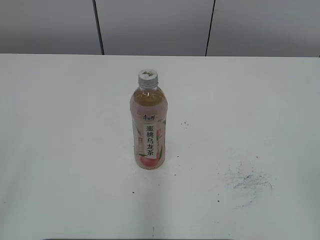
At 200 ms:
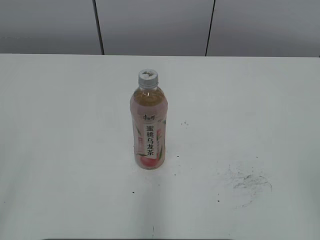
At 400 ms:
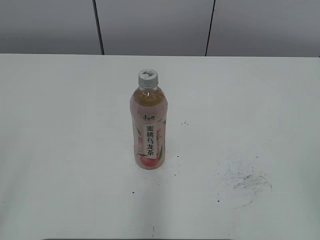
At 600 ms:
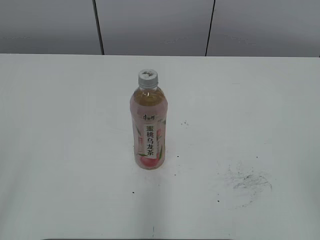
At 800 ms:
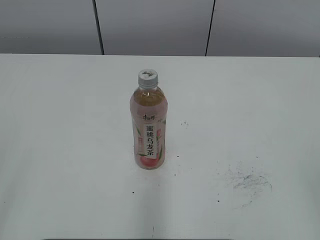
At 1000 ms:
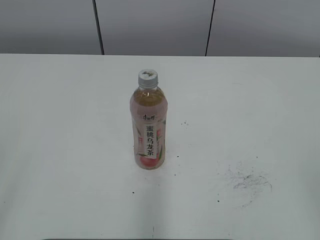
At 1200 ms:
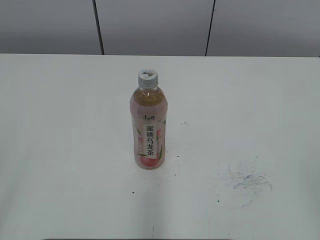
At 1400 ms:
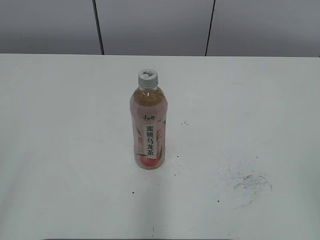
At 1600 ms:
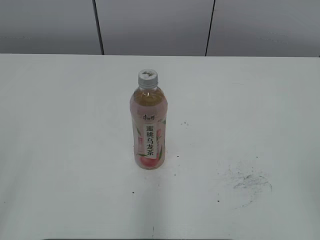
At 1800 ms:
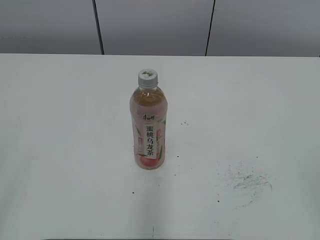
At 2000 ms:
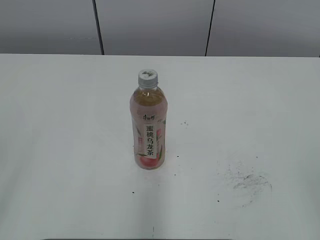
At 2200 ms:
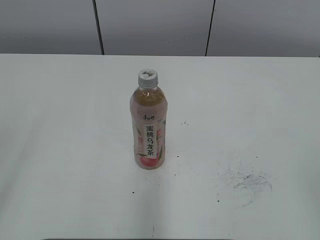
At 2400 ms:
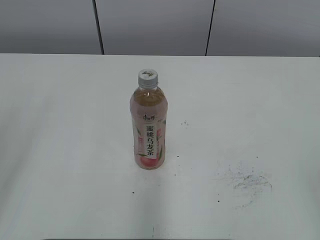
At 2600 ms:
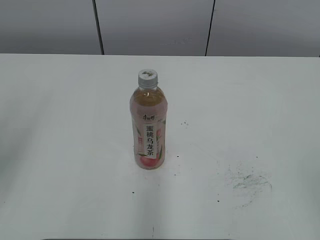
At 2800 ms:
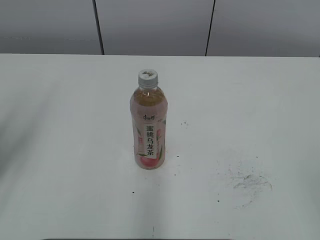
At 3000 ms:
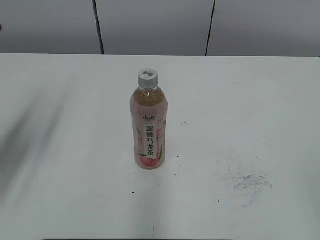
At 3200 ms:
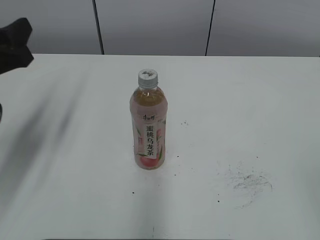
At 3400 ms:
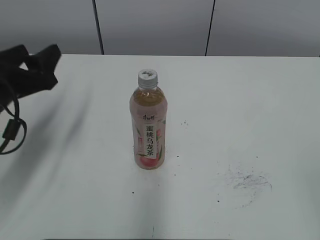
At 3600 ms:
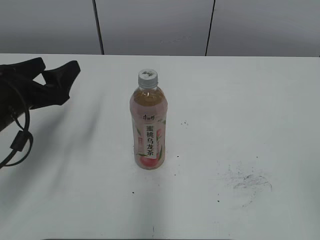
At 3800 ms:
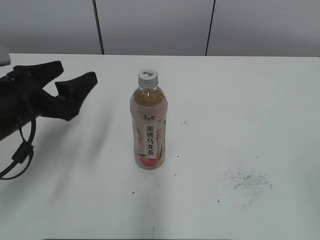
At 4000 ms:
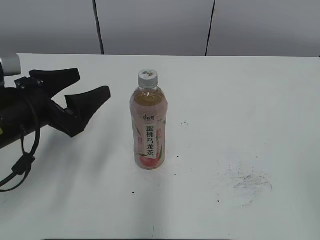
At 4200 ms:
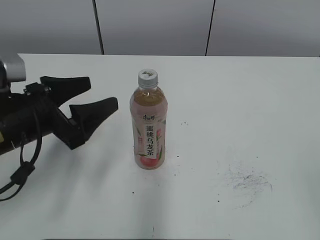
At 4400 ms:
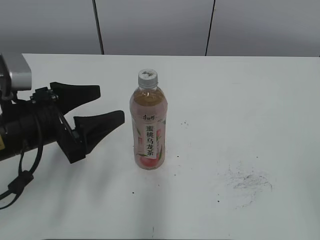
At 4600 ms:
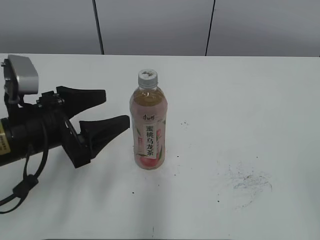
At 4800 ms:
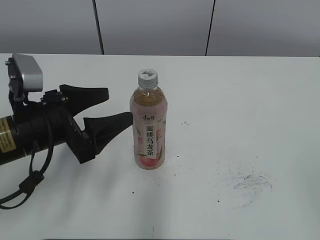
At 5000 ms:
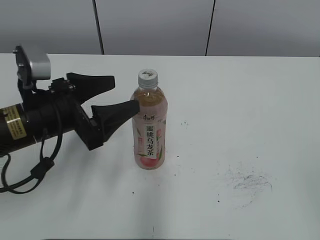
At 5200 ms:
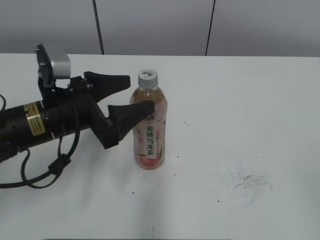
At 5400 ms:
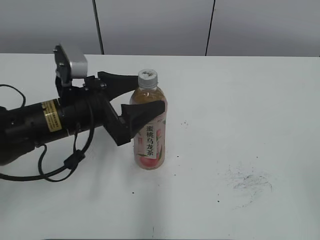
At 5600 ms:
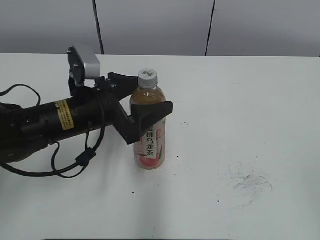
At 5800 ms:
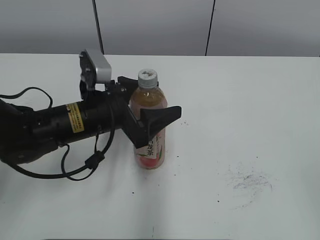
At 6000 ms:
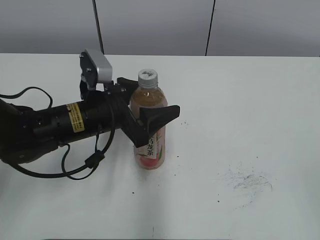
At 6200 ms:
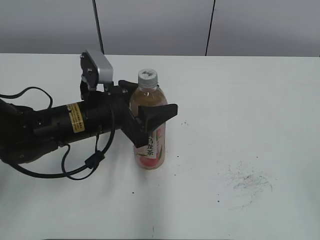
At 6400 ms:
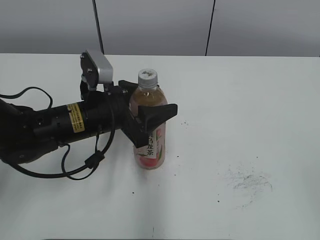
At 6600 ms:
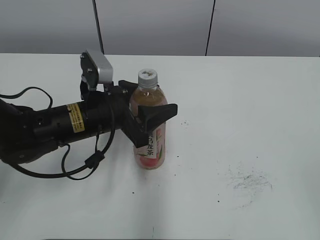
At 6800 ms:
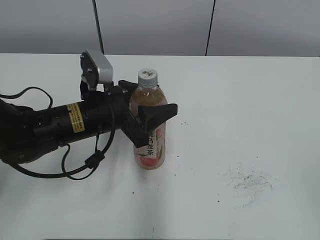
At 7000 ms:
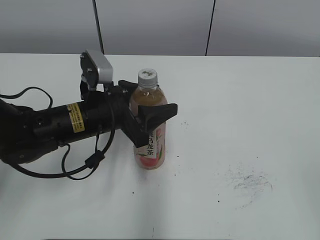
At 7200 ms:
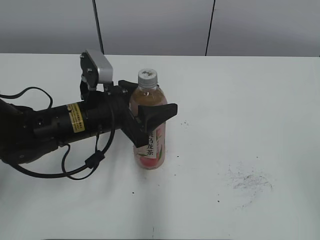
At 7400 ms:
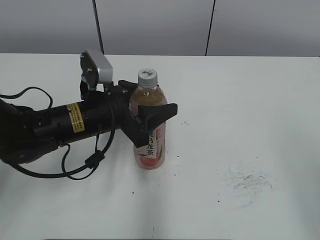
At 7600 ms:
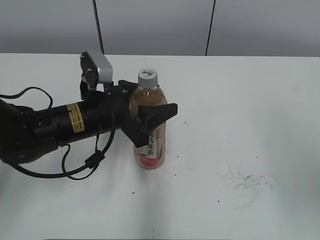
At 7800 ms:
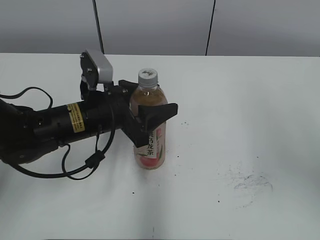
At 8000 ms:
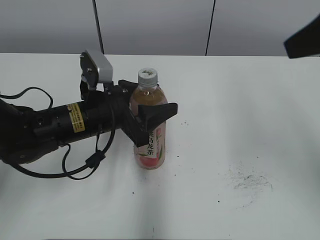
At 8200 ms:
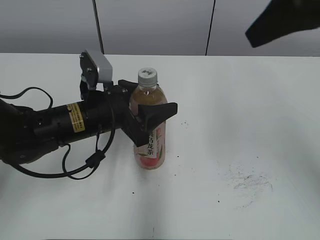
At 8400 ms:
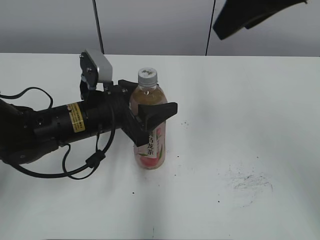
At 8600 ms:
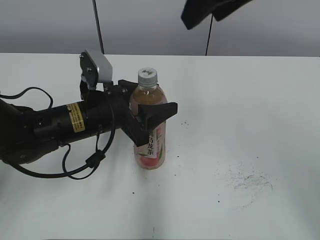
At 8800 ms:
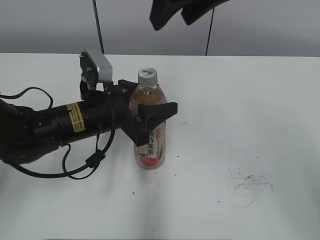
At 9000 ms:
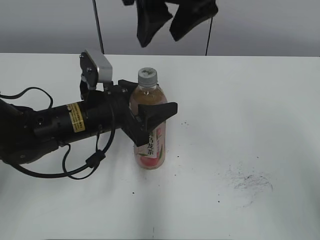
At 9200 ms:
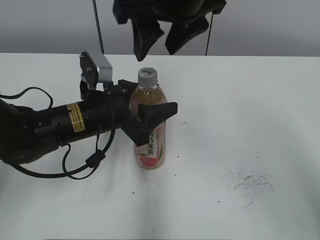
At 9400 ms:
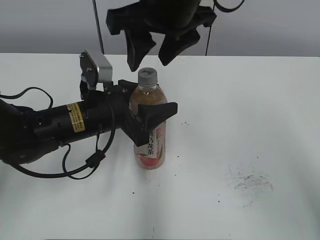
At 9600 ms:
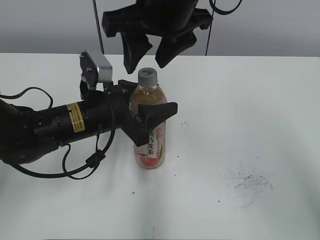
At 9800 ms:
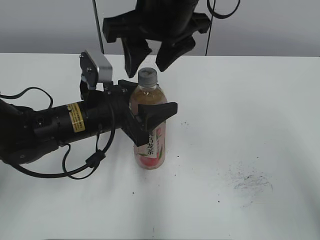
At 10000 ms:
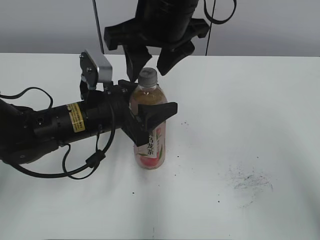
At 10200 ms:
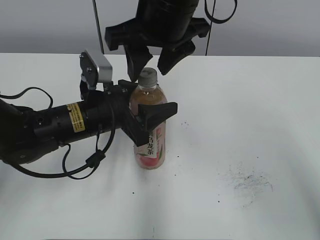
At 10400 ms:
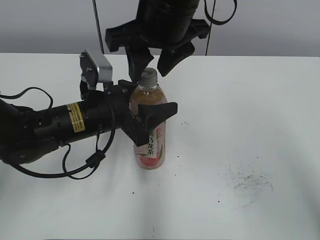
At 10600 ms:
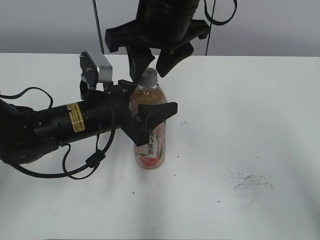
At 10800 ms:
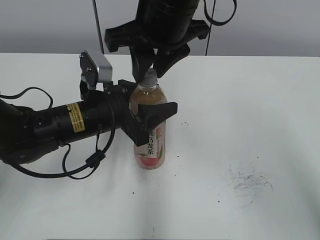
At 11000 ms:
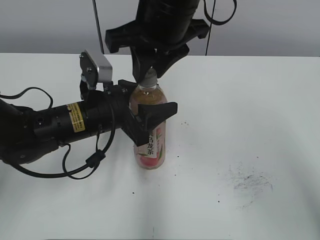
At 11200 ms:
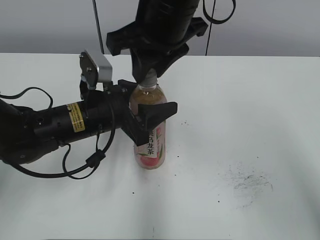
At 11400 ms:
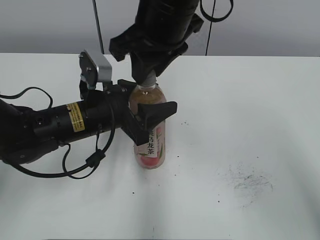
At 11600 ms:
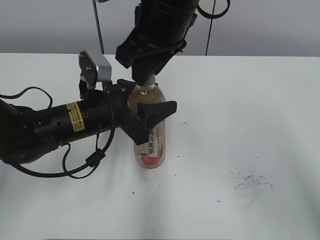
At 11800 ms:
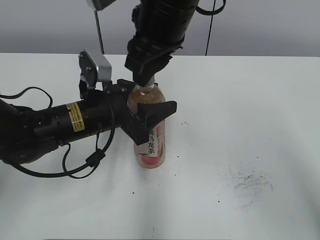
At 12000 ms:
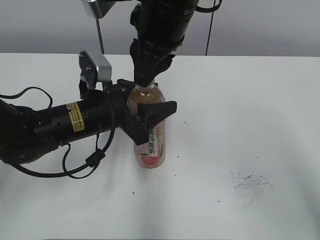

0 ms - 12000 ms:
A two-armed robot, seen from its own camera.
Step, 0 ms - 6200 ms: Grab the Peach Oolong Tea with the left hand.
1600 ms - 3000 ms: The left gripper moves forward, approximately 20 cm.
3000 ms - 4400 ms: The left gripper shifts approximately 15 cm downward and to the right, and opens.
4400 ms - 6000 ms: The left gripper moves to the right and forward, approximately 10 cm.
6000 ms - 7600 ms: The right gripper travels forward by about 10 cm. Meanwhile the left gripper closes its fingers.
7600 ms - 9000 ms: The right gripper heads to the left and forward, covering roughly 30 cm.
9000 ms - 10400 ms: The right gripper travels downward by roughly 5 cm.
10400 ms - 12000 ms: The right gripper closes up.

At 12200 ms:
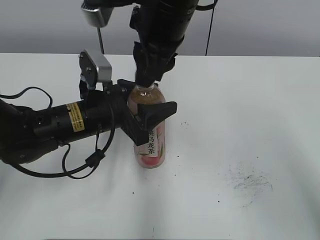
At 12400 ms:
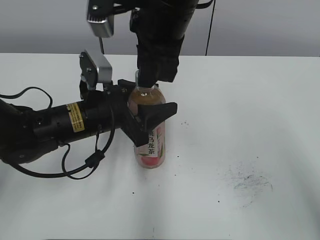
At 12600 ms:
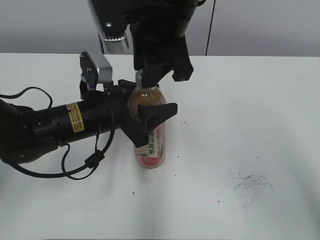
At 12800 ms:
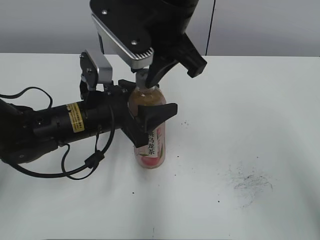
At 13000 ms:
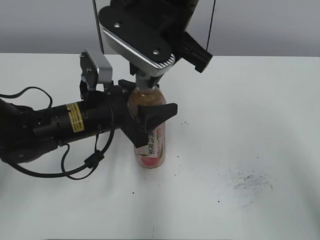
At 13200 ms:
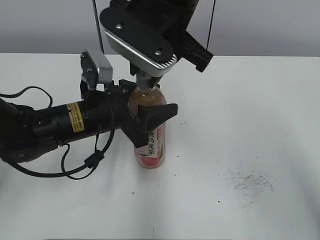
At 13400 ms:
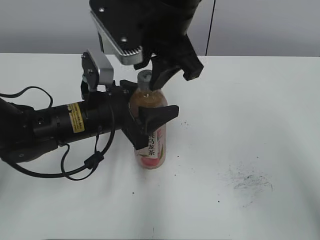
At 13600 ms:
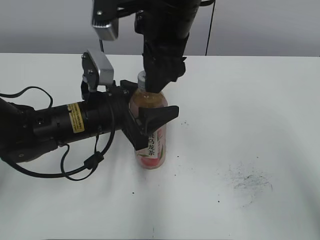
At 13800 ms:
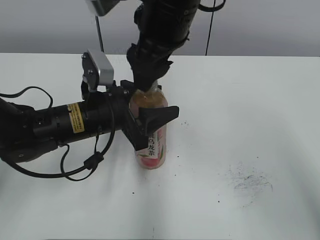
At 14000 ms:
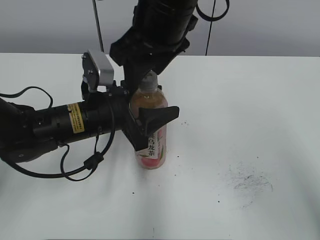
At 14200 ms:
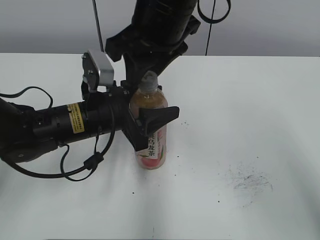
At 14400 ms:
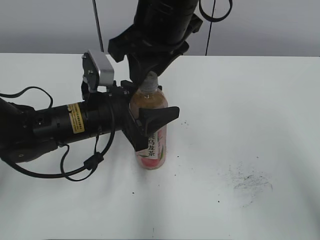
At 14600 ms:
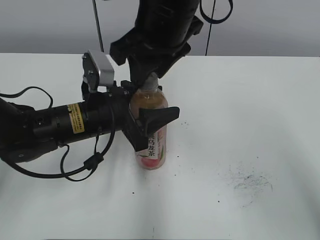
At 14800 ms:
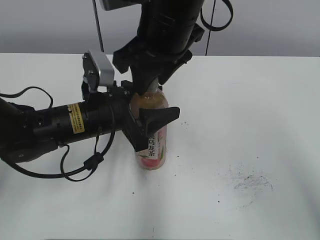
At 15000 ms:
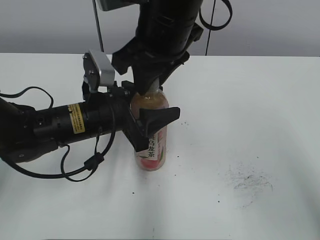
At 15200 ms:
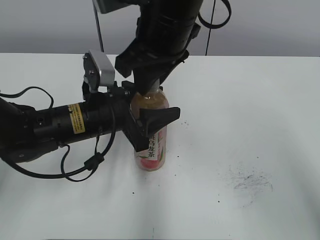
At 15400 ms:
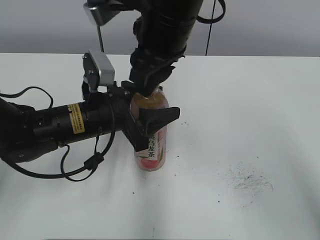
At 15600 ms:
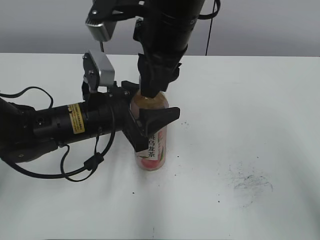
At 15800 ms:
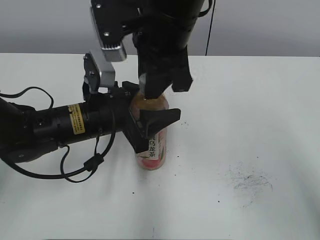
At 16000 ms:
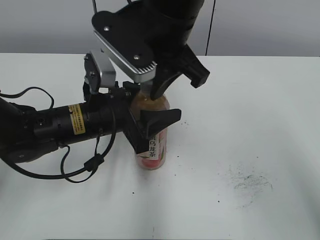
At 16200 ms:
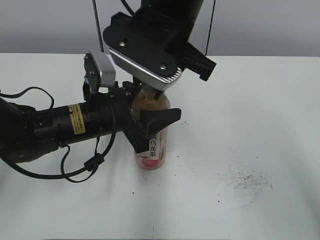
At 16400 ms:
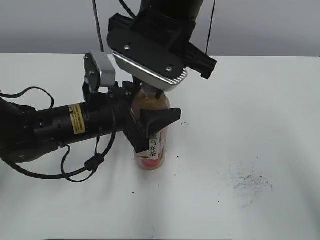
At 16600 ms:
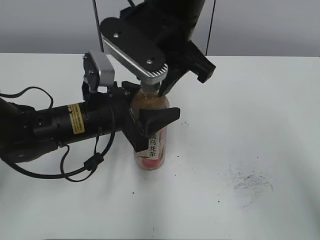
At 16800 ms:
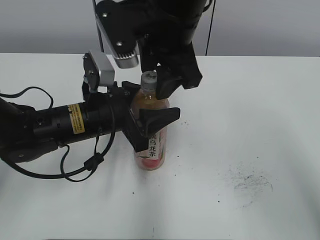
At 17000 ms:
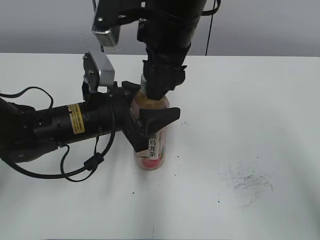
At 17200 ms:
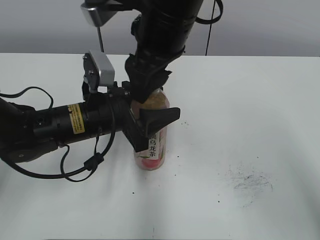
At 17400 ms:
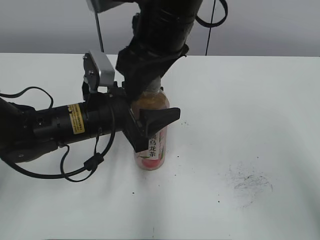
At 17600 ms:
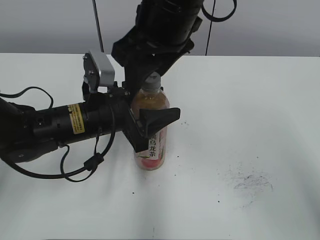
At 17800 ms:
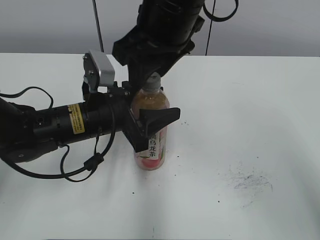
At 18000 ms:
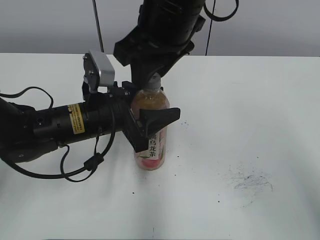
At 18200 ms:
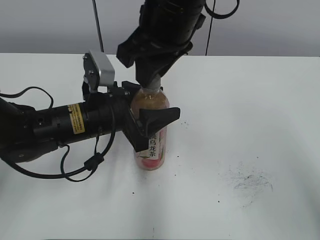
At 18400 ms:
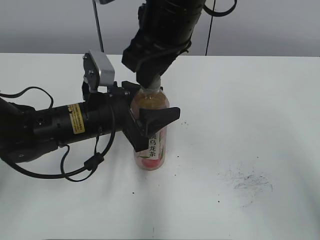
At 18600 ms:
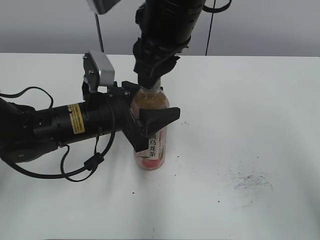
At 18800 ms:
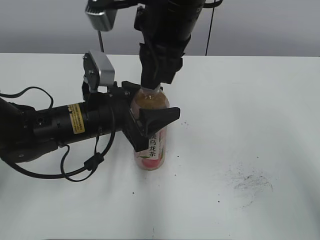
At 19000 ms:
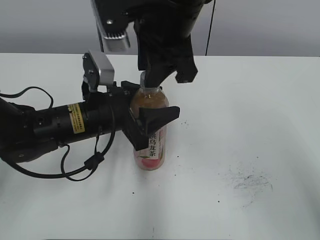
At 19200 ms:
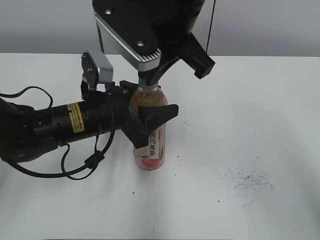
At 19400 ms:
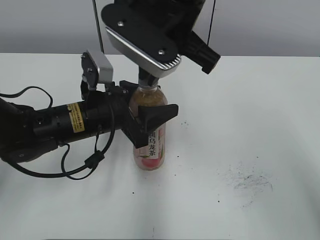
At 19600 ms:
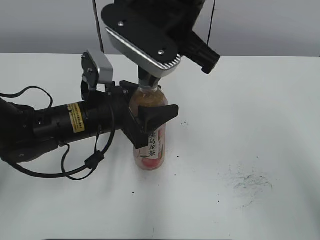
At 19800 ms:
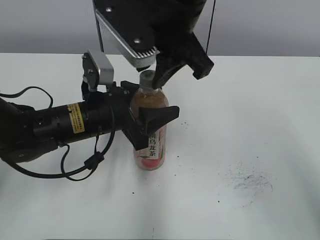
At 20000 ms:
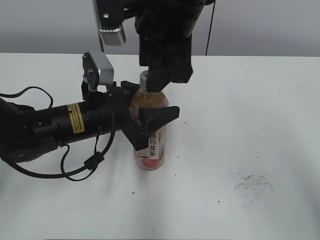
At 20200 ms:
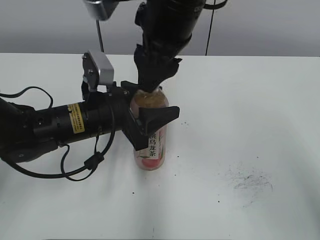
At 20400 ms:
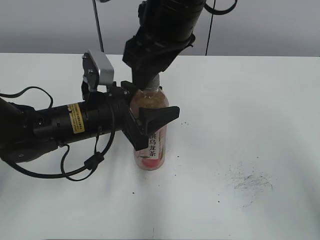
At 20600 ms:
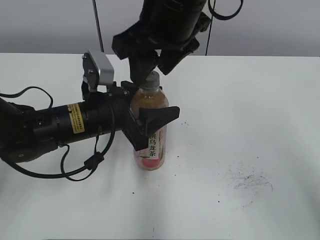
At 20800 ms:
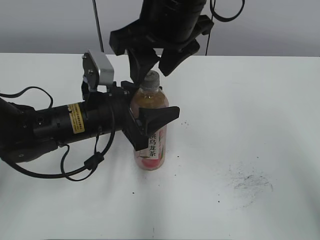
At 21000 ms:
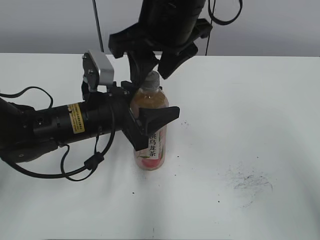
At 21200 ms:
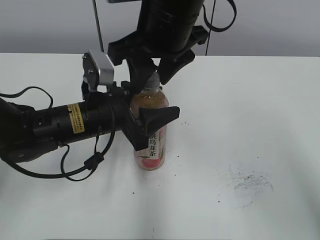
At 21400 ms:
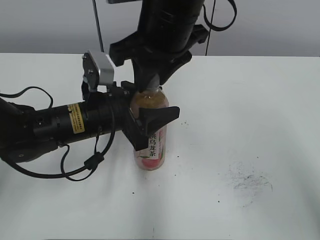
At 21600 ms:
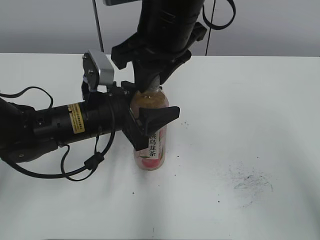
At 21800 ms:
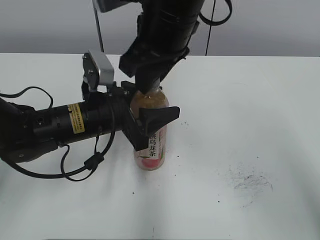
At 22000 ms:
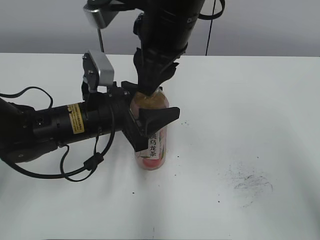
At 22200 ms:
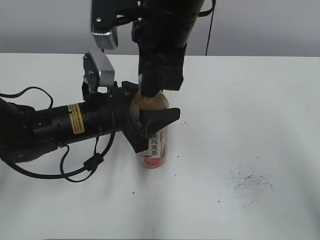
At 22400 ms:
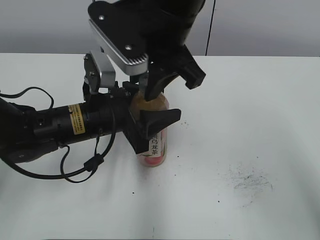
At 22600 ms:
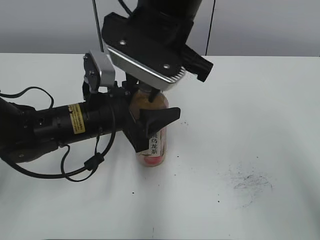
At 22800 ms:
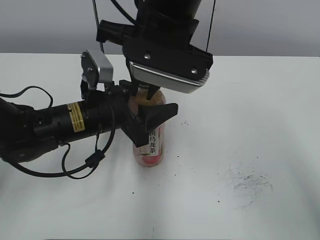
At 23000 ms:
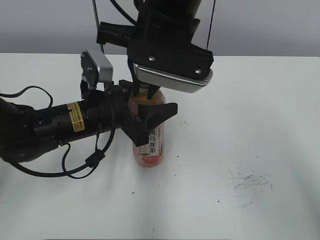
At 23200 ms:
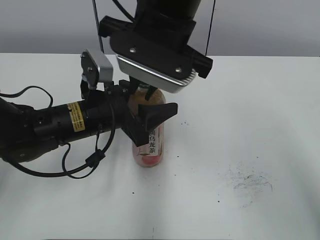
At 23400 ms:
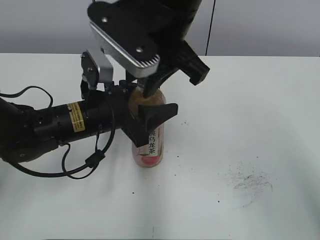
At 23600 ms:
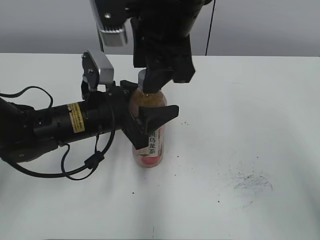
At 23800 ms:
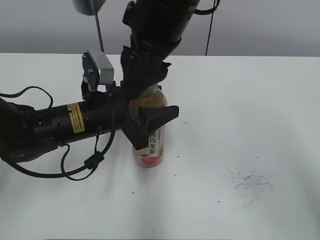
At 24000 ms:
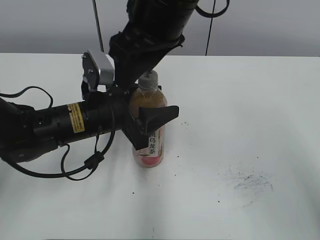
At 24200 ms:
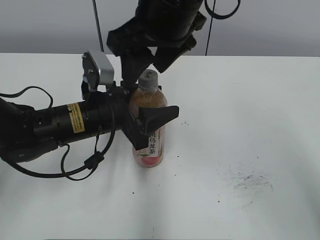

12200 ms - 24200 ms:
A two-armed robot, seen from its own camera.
12200 ms - 13800 ms: The right gripper opens up.
13800 ms - 15200 ms: The right gripper closes up.
22600 ms - 24200 ms: The right gripper opens its fingers.
